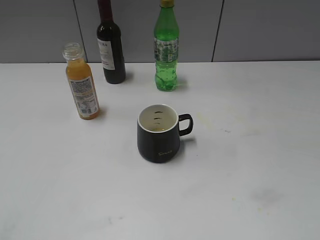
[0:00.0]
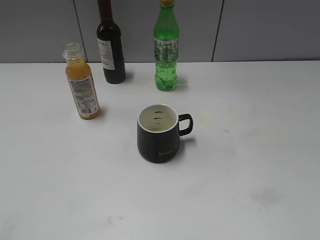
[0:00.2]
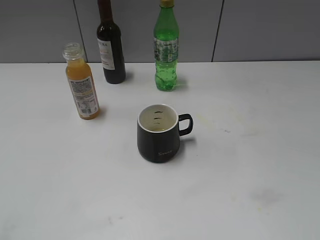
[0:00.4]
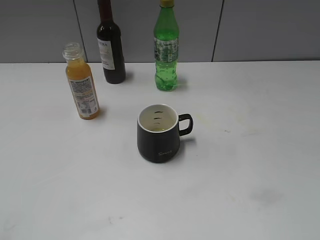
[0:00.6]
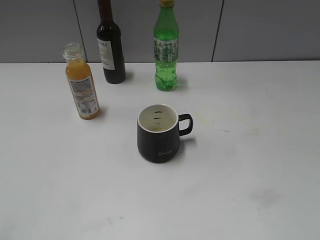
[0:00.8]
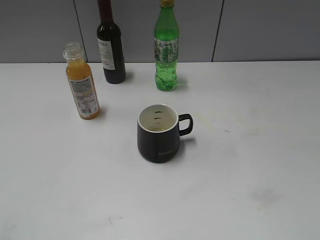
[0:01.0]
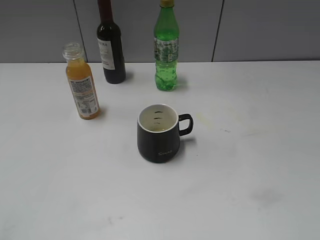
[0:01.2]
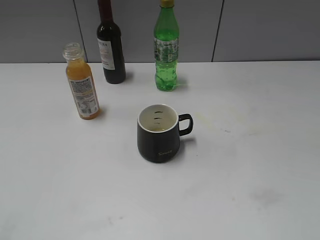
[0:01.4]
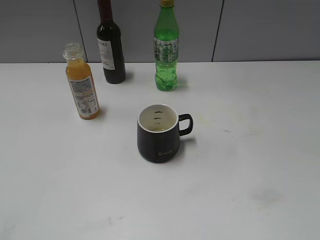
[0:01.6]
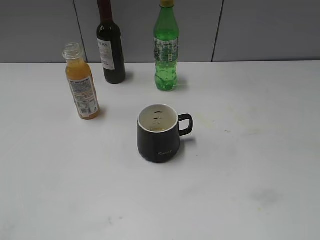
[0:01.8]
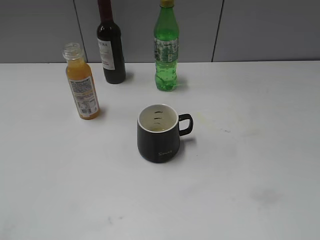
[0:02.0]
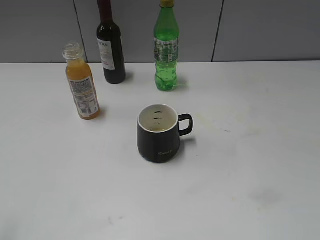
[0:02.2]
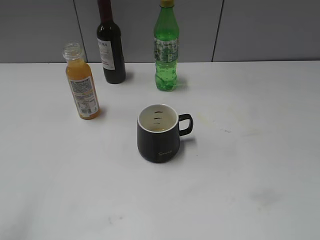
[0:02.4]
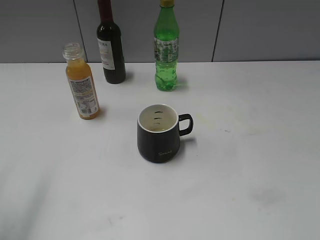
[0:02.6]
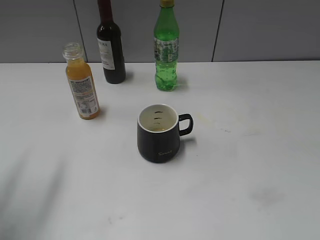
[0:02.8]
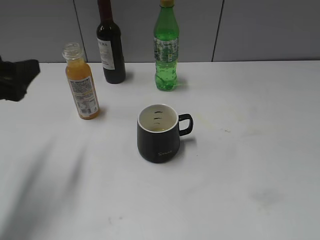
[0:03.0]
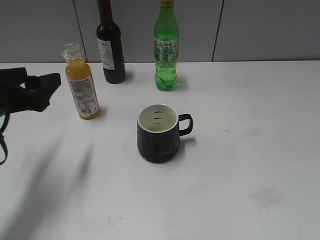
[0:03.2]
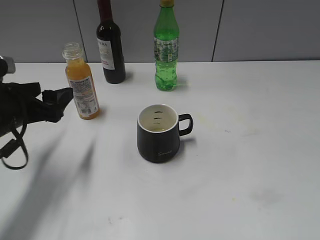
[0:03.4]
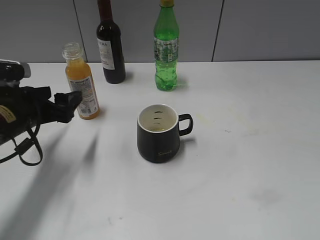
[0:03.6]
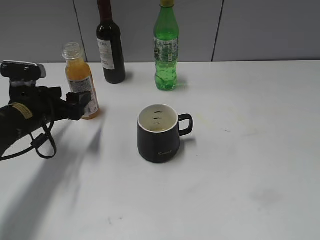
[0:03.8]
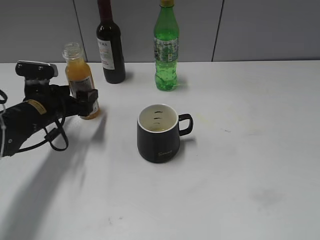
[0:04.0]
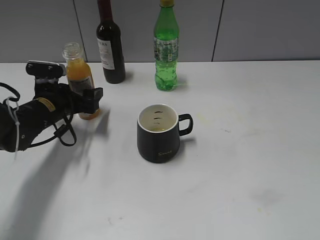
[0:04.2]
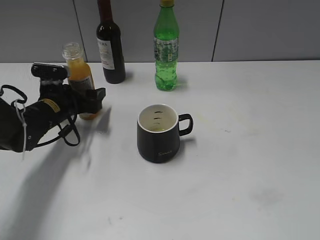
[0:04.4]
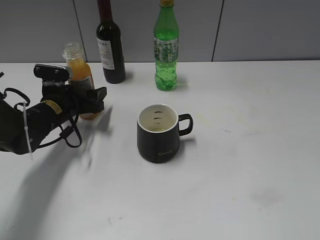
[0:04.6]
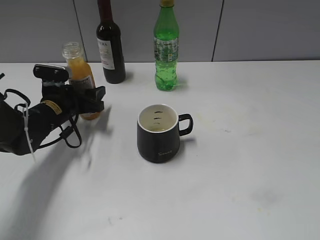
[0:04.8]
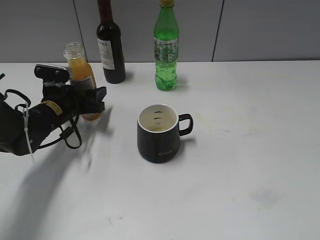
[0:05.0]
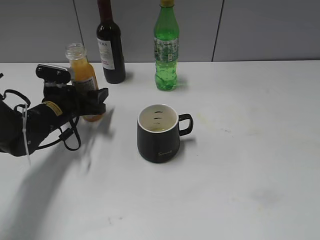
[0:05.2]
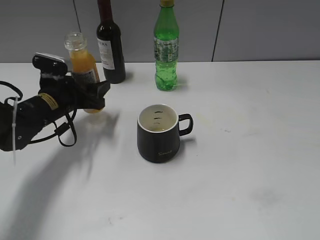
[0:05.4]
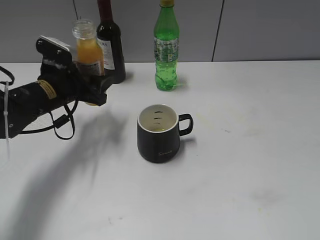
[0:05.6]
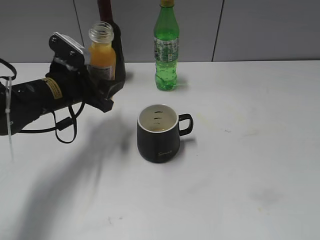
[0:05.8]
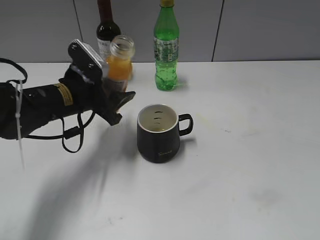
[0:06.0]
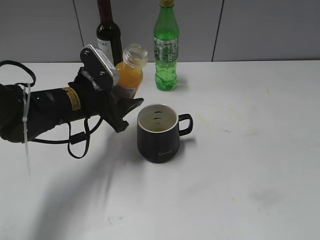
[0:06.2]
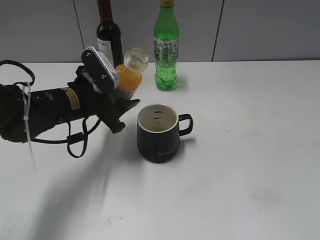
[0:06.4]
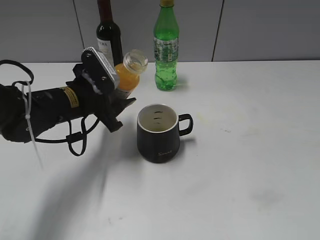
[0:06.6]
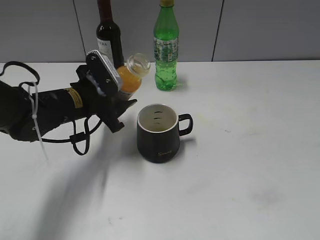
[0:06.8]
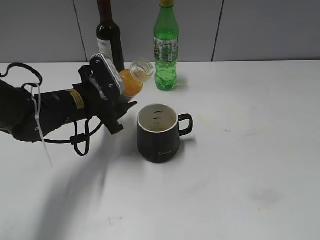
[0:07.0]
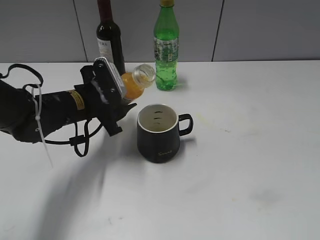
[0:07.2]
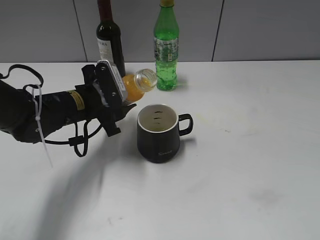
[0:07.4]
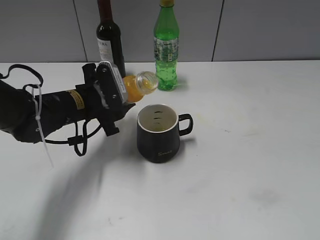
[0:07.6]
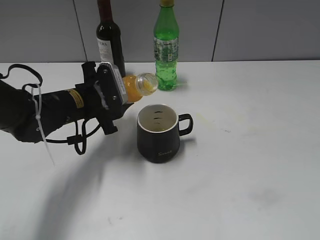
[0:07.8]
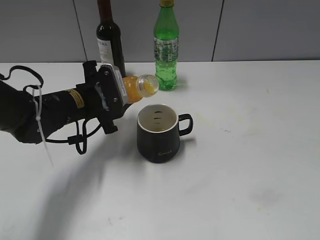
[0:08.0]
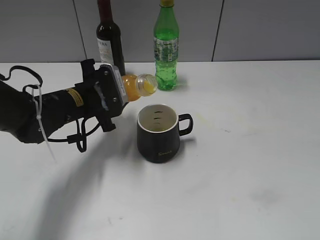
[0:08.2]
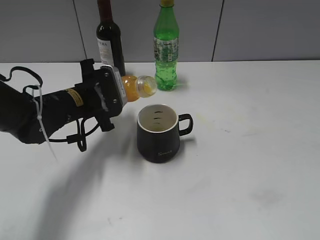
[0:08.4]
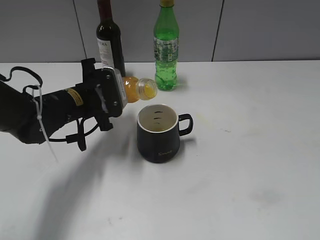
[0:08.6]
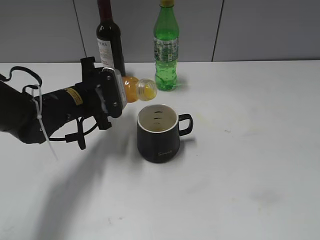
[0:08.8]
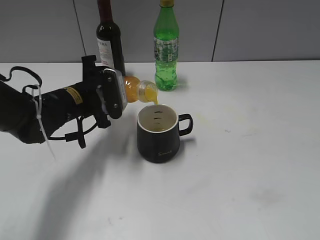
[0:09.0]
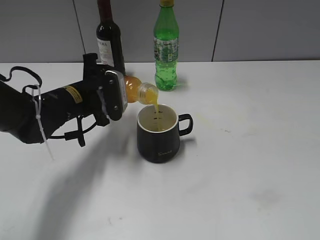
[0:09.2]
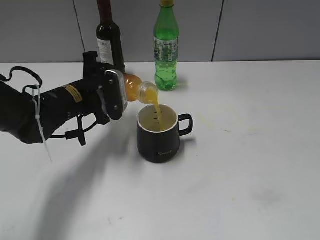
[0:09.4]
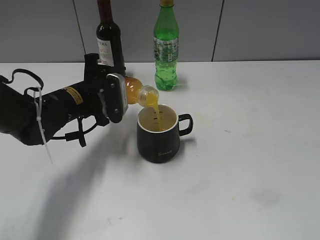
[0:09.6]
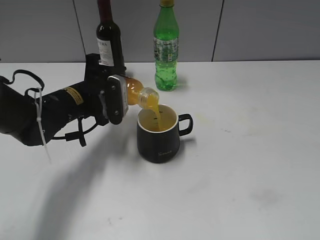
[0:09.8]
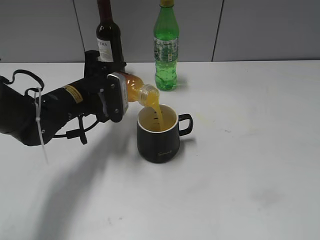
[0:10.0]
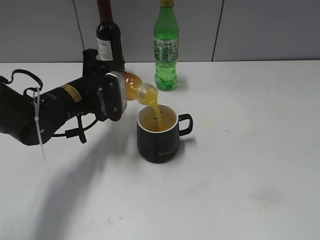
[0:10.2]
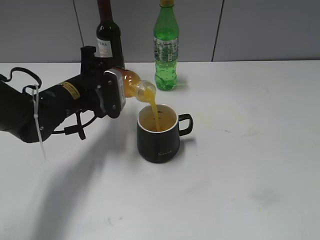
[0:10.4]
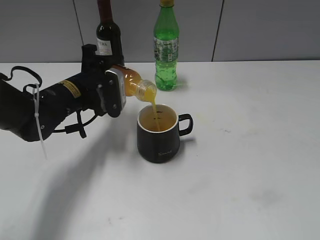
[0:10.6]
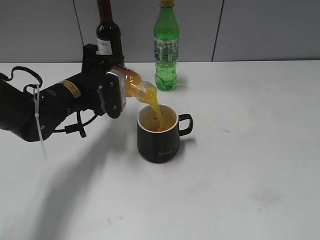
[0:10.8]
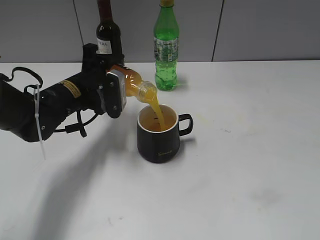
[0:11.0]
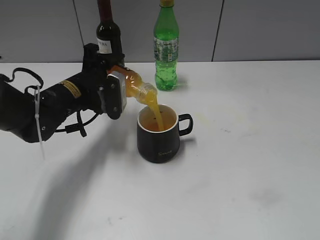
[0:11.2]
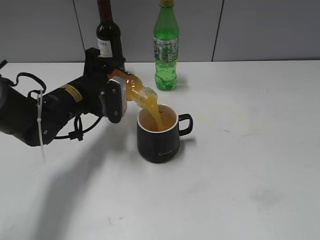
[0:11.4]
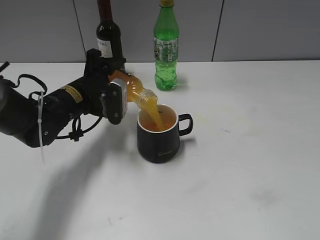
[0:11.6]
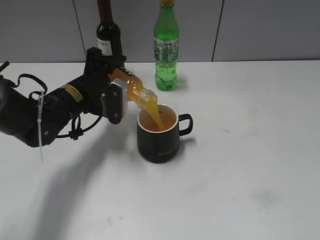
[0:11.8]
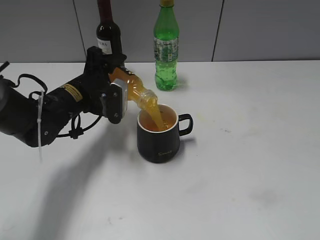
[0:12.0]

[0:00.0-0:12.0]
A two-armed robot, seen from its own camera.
Step, 0:00.0 to 0:05.0: Grasp the bottle with orange juice with left gripper.
0:01.6 to 0:03.0: The left gripper goes some 20 cm forward.
0:03.0 to 0:04.4: The left gripper shifts approximately 25 cm downward and forward.
0:04.4 to 0:06.0: The left gripper moves upward, roughly 5 cm, and closes up.
0:09.0 to 0:10.4: The grippers move only a little.
0:10.4 to 0:12.0: The grippers stay close to where they were, moving slightly.

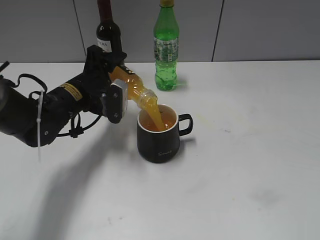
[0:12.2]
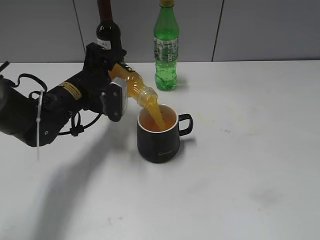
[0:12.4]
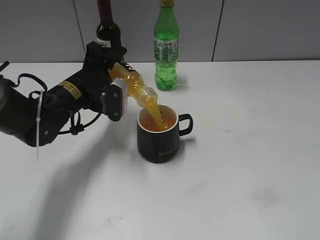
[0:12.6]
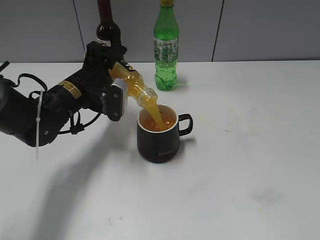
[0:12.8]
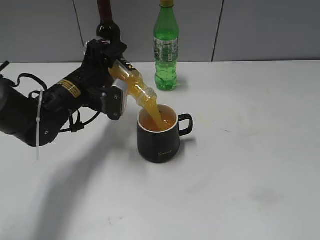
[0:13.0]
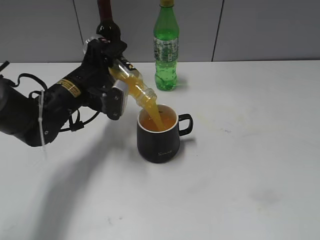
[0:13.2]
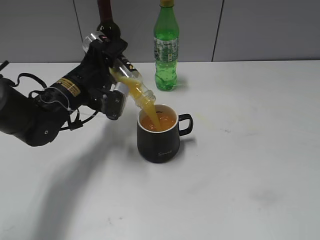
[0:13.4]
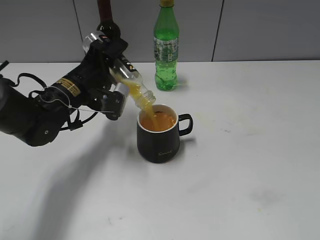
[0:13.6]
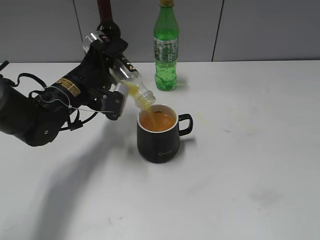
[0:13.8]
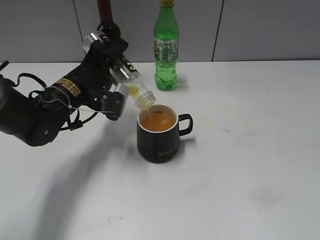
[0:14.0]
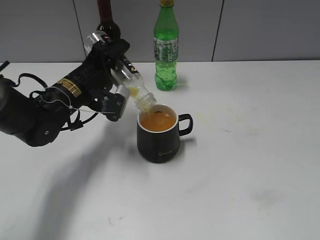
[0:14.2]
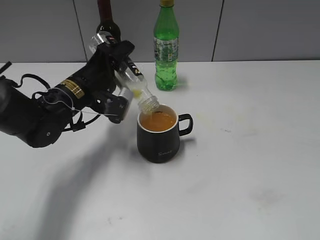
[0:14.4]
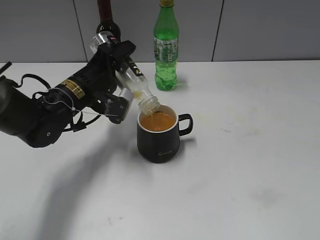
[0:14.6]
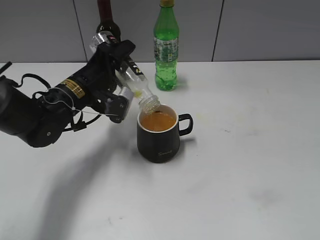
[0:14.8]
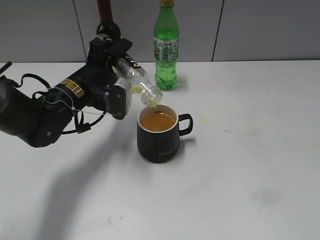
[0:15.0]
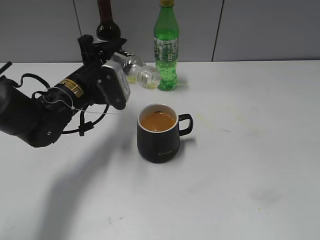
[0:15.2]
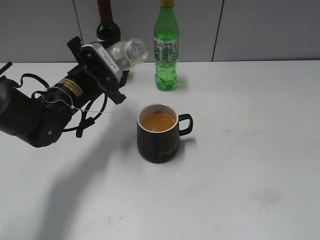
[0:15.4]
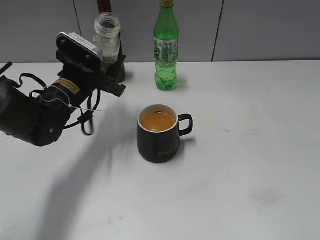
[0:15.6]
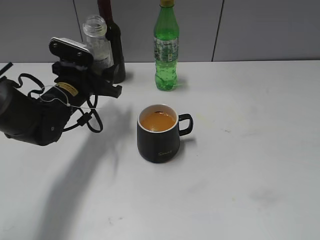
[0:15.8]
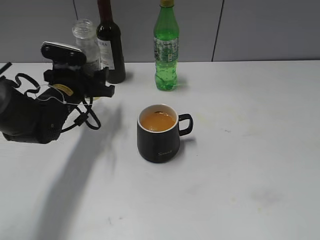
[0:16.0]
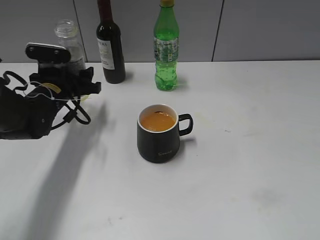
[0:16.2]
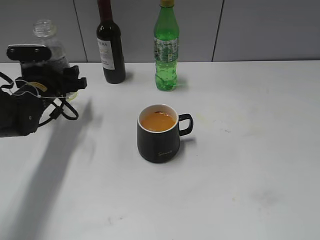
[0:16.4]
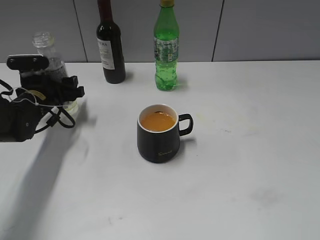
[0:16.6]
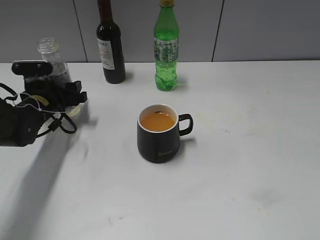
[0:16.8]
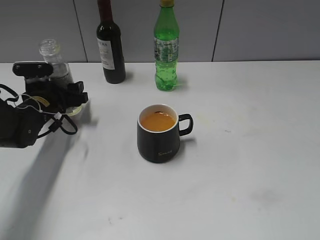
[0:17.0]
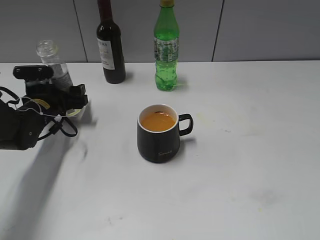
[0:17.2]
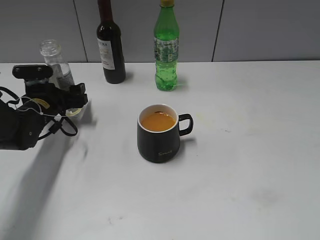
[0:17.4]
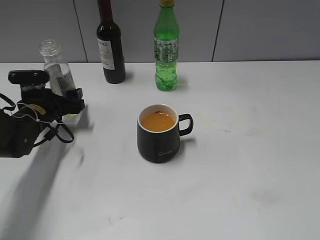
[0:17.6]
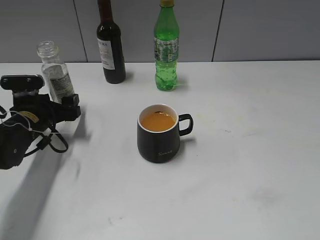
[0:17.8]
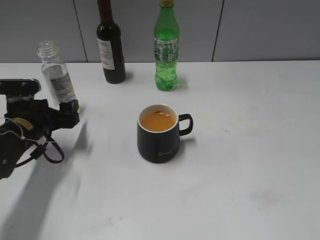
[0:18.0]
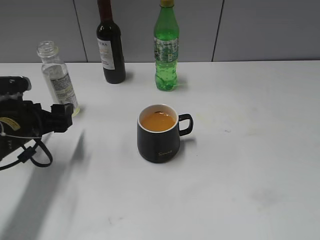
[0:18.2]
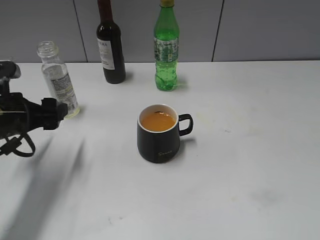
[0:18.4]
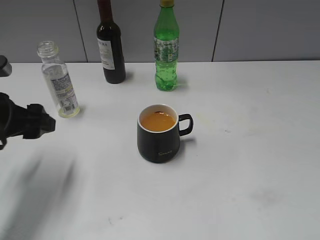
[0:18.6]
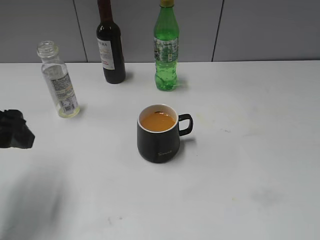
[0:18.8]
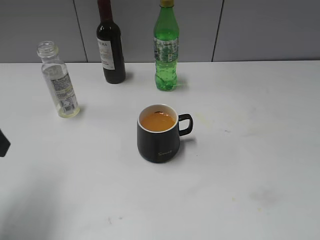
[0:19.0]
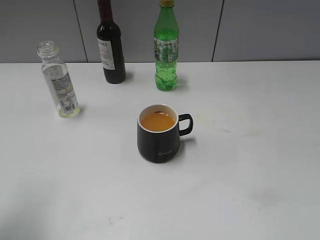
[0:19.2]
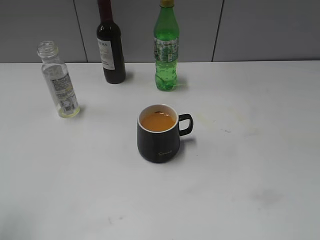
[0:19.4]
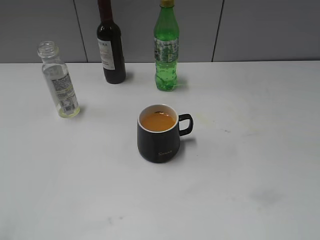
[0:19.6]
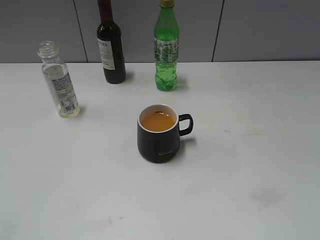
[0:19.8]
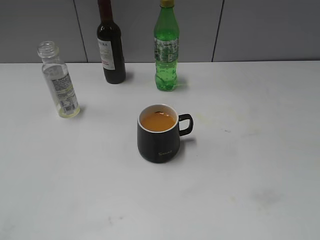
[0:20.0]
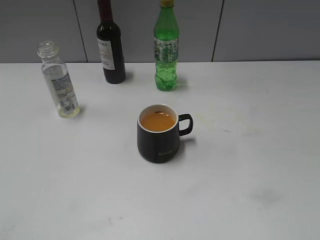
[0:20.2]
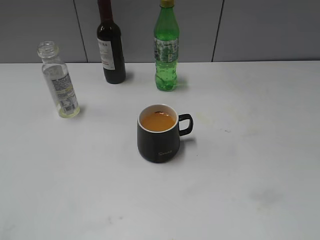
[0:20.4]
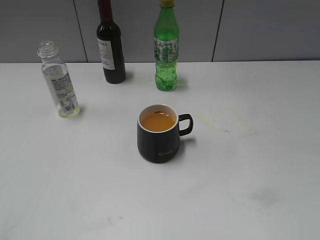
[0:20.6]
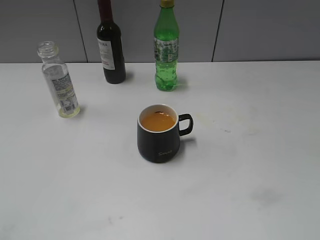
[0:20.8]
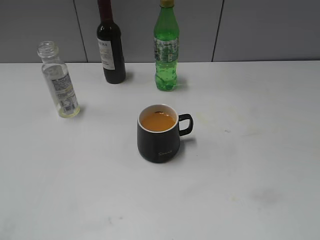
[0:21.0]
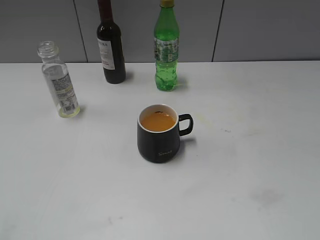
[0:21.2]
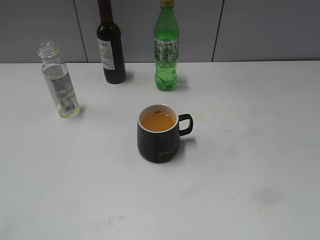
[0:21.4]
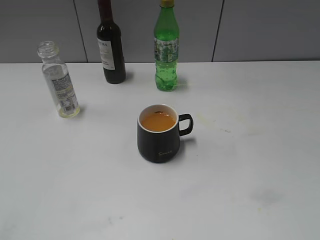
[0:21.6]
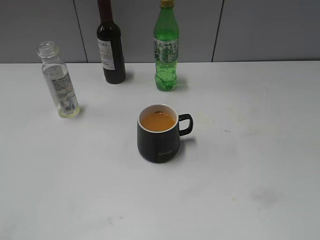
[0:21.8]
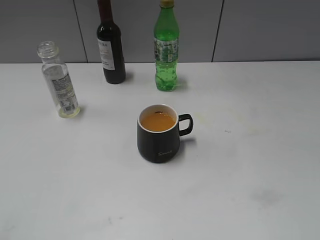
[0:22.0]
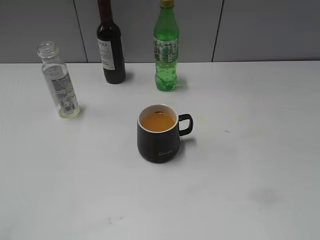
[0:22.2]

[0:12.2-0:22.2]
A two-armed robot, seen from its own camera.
Step, 0:12.2 to 0:15.0: Pour the orange juice from bottle to cup with left gripper.
Step, 0:15.2 to 0:17.4: Place the orange juice bottle on the table with left gripper.
0:12.2 to 0:13.6: There are only small adjustments of the grippers.
0:13.6 to 0:15.0: Both grippers stay about where they are.
0:15.0 to 0:16.4: The left gripper goes approximately 10 cm to the left.
0:16.4 to 0:18.0: The left gripper travels backward by roughly 5 cm, and opens up.
0:18.0 to 0:19.4: The left gripper goes about 30 cm upward and backward.
